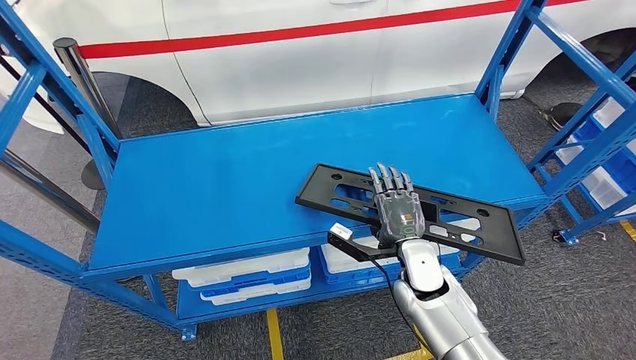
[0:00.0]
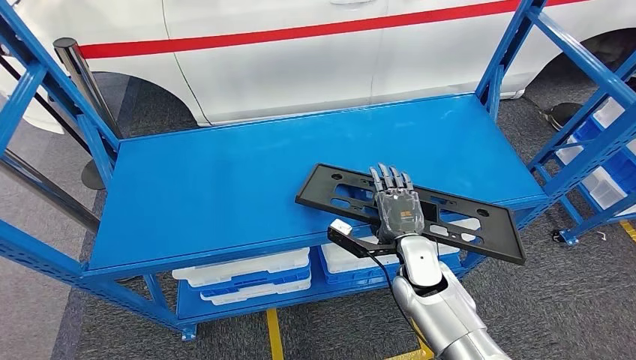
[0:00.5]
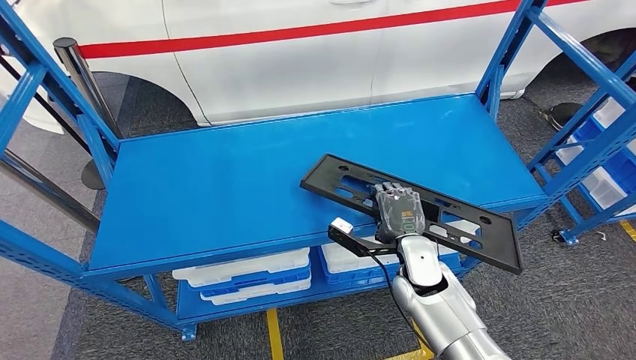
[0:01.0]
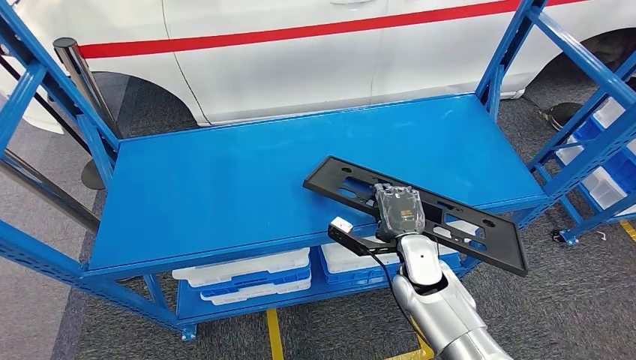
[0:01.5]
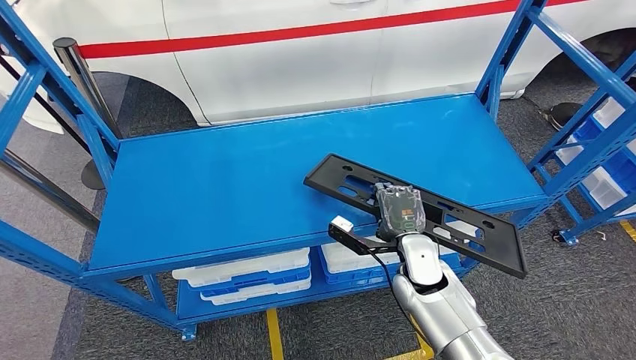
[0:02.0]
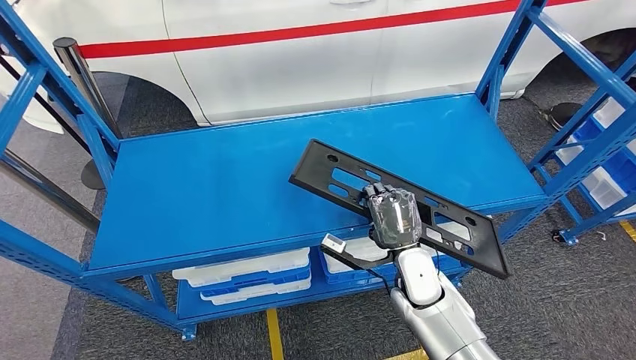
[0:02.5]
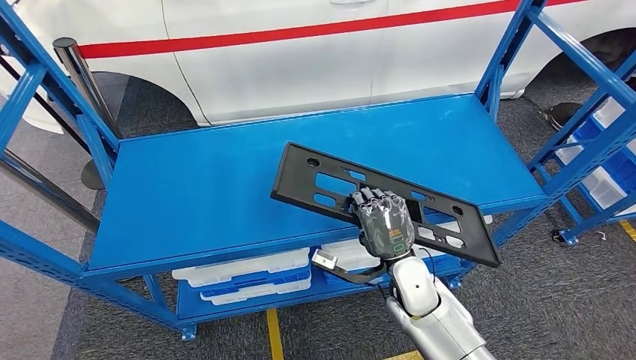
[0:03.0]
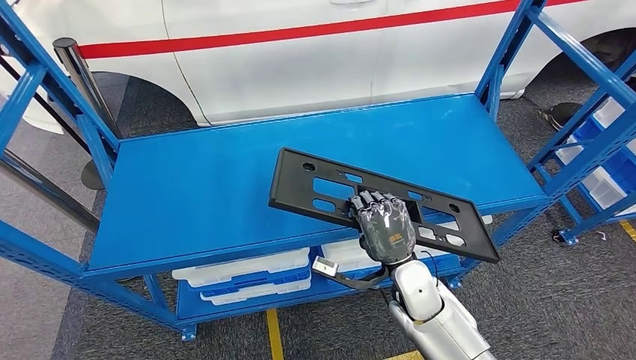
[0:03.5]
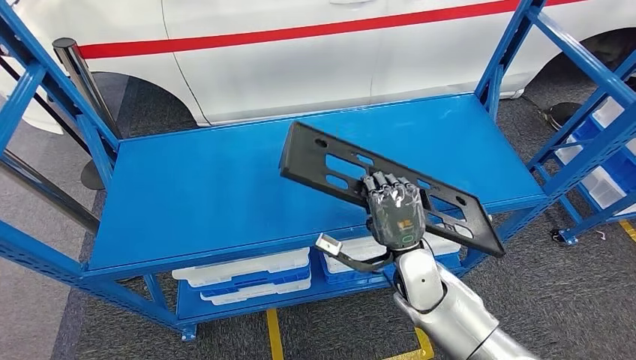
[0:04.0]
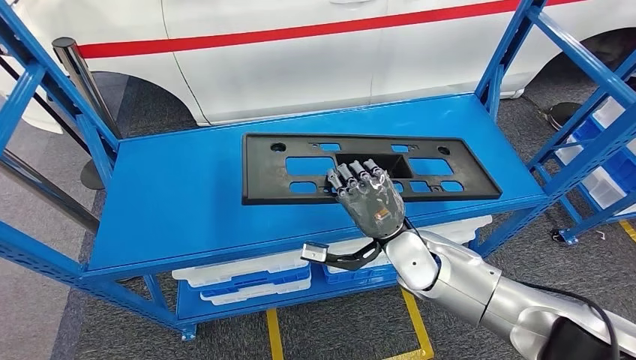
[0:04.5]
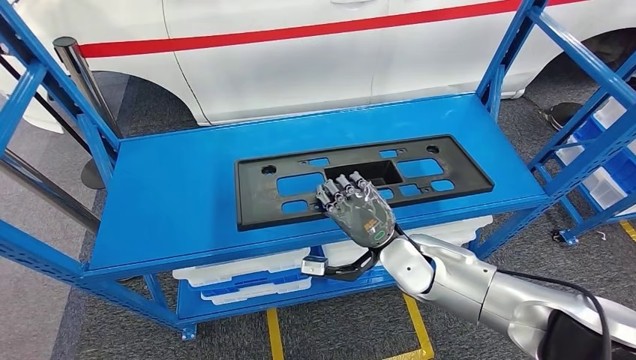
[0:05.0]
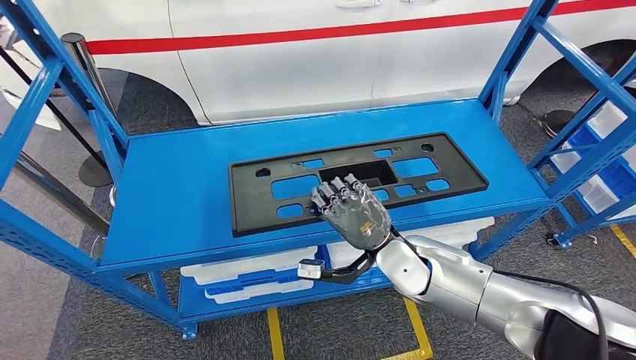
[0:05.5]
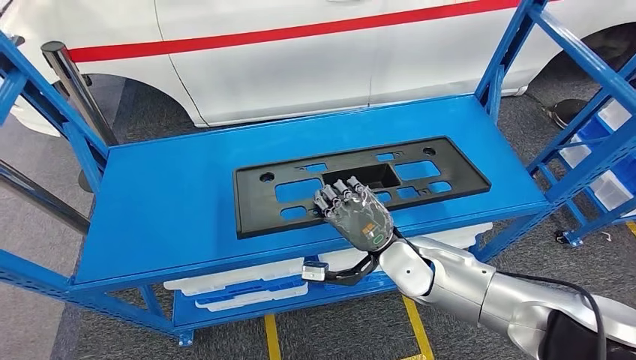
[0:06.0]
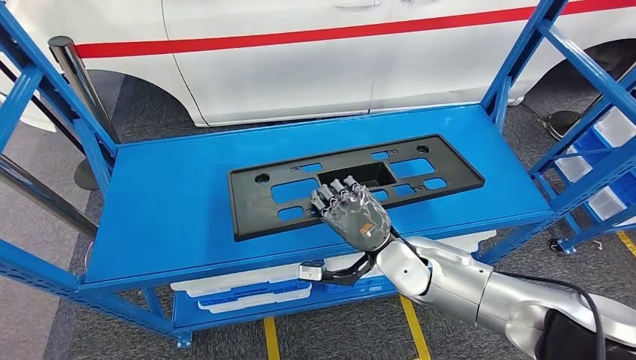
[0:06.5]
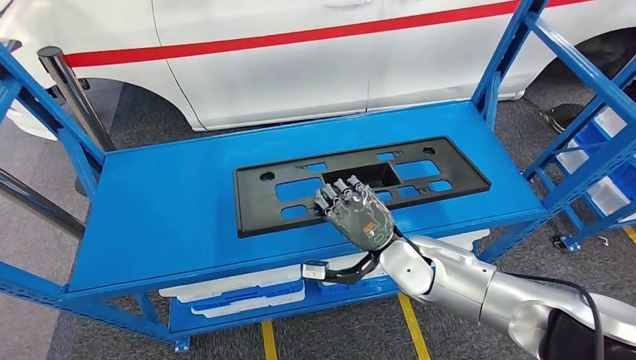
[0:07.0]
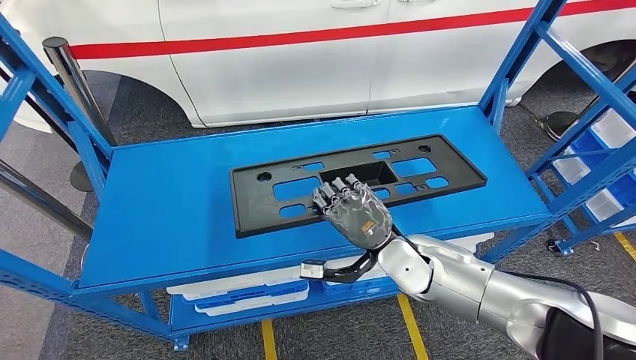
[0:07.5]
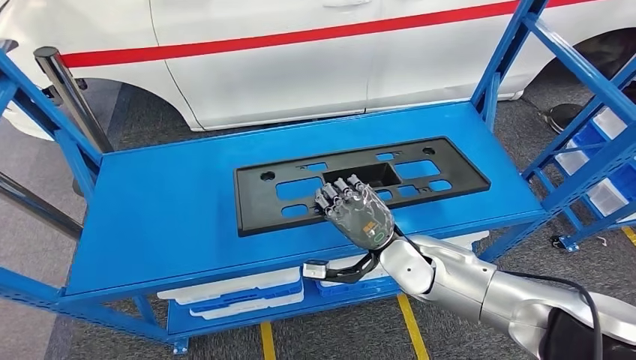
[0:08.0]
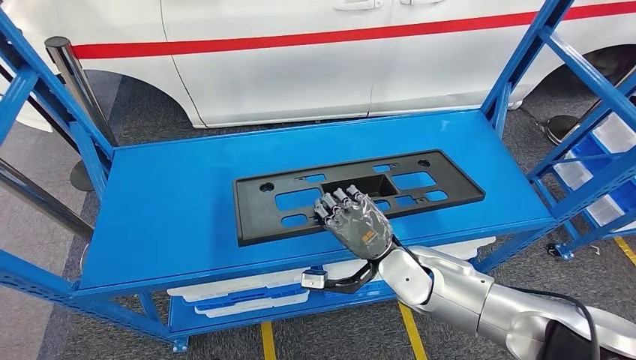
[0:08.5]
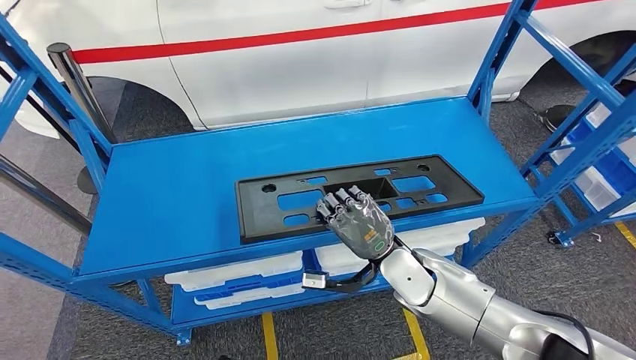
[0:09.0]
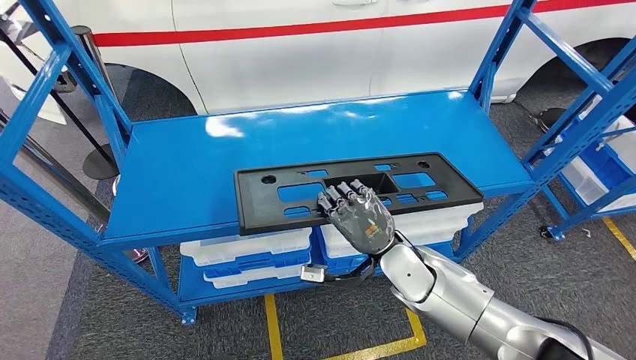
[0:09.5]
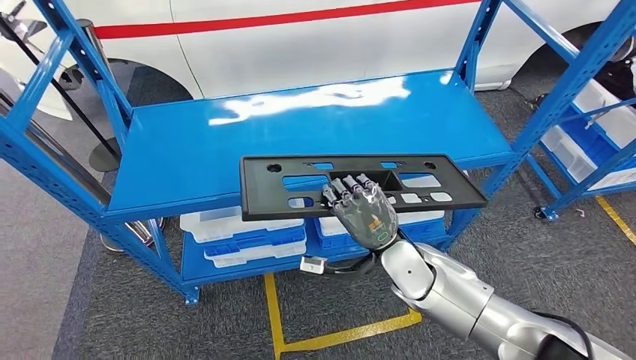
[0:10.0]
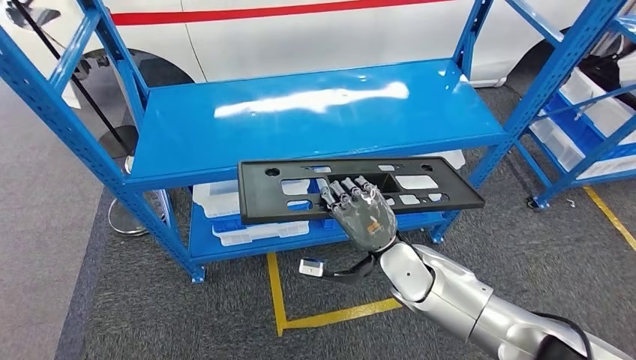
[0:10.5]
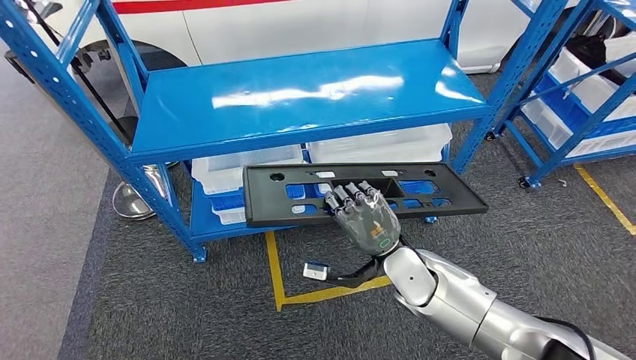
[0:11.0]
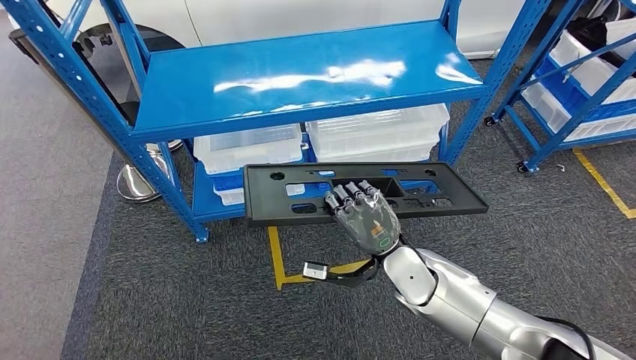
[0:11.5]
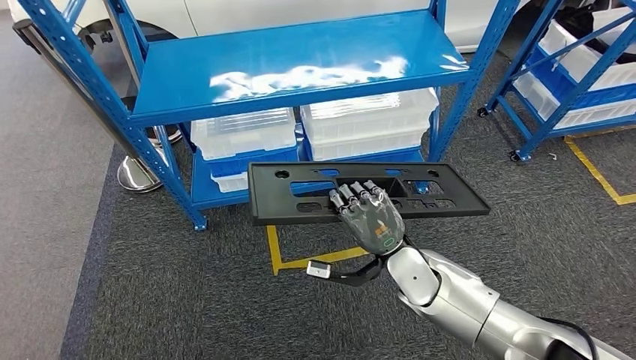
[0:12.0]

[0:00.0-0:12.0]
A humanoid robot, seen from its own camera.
Step, 0:00.0 to 0:02.0: Pick up the large material from the shelf.
0:00.0 to 0:02.0: Neither hand changes place.

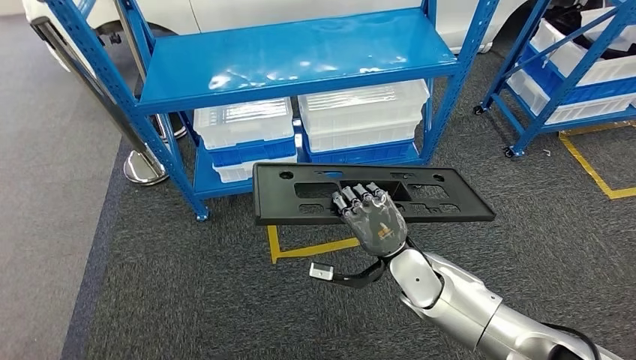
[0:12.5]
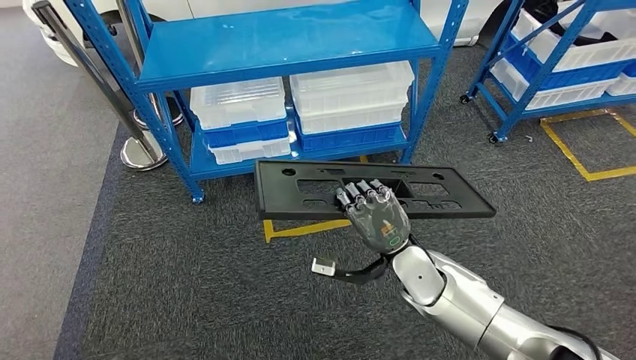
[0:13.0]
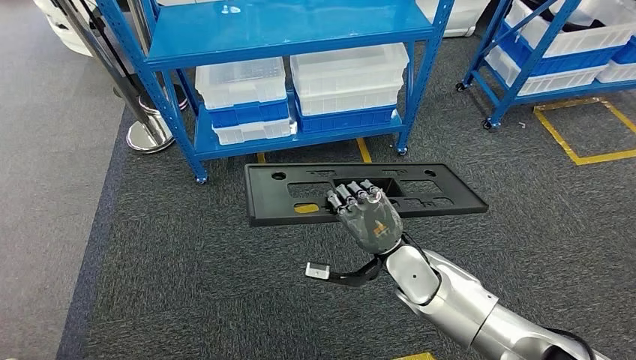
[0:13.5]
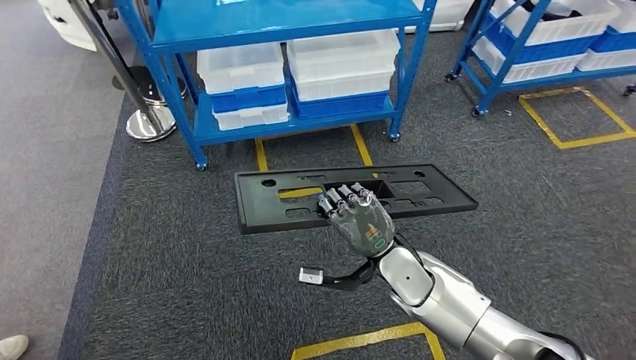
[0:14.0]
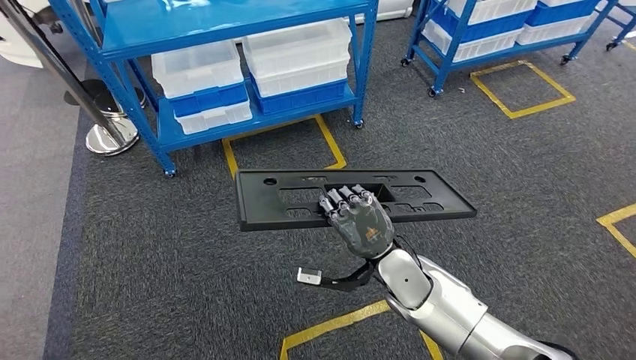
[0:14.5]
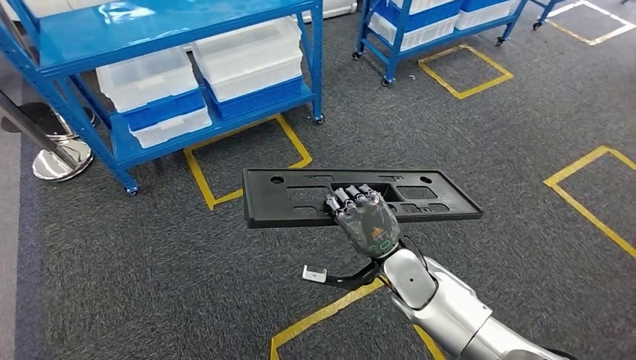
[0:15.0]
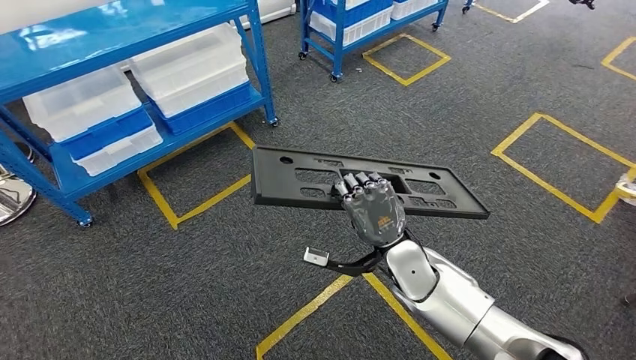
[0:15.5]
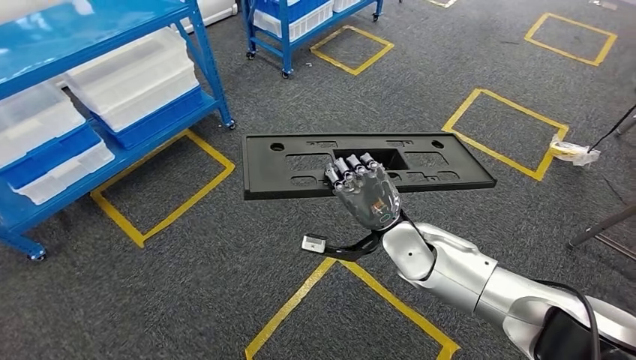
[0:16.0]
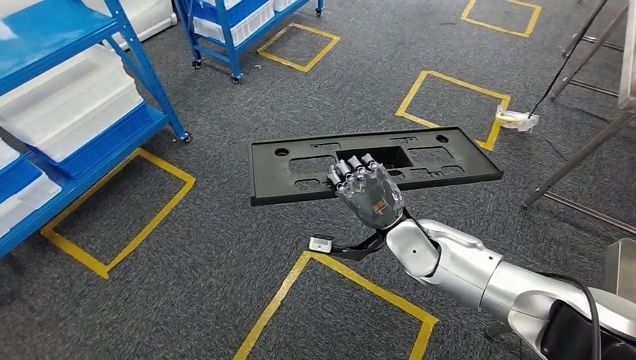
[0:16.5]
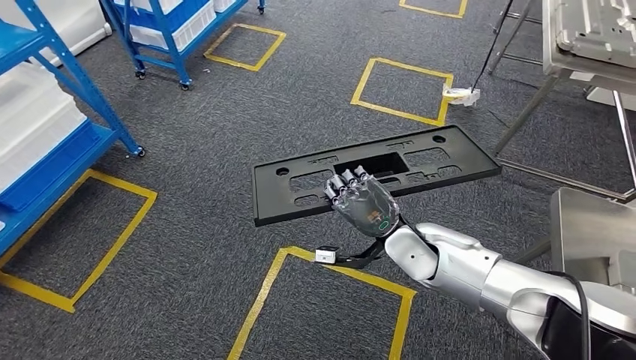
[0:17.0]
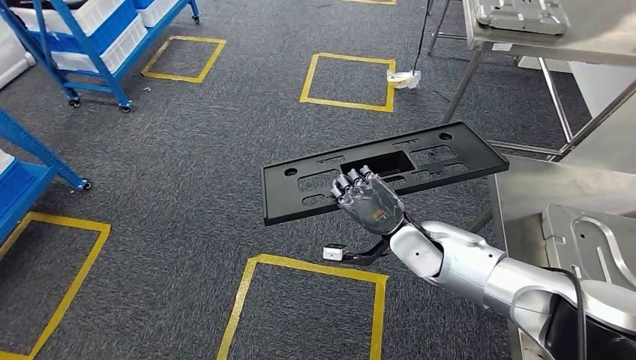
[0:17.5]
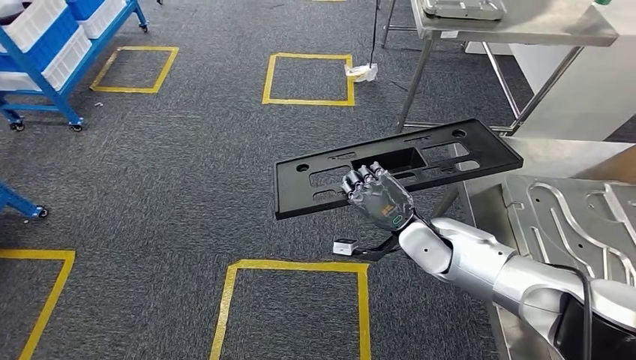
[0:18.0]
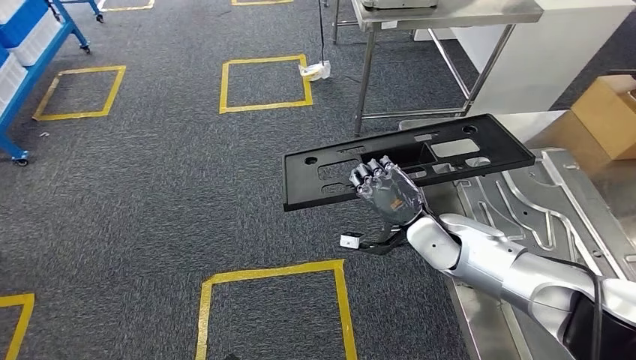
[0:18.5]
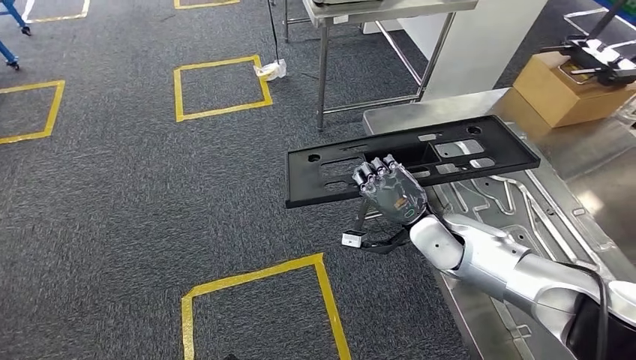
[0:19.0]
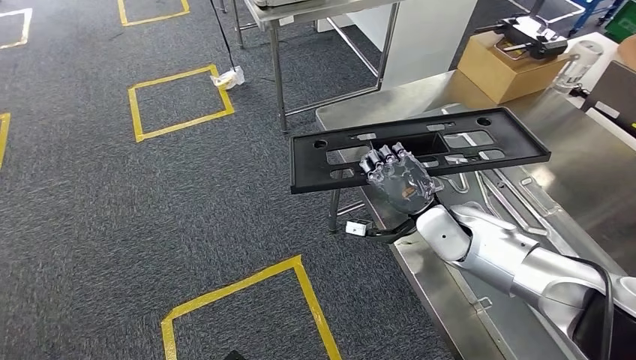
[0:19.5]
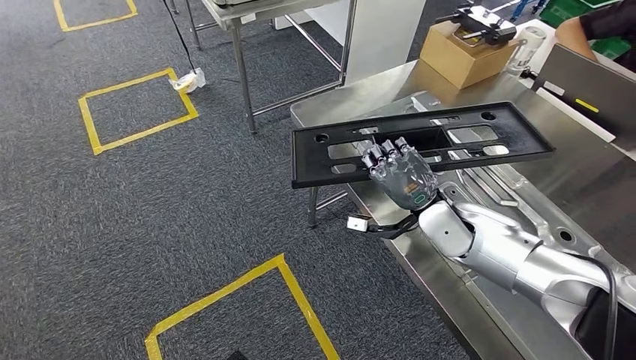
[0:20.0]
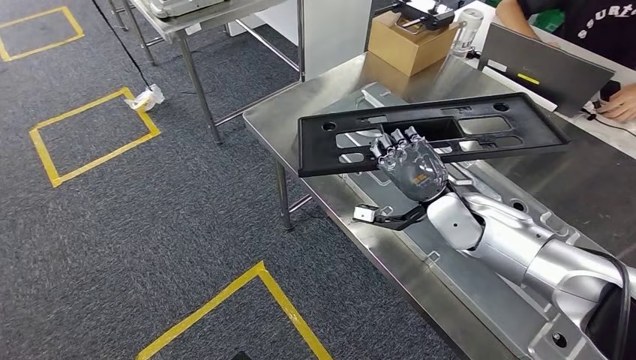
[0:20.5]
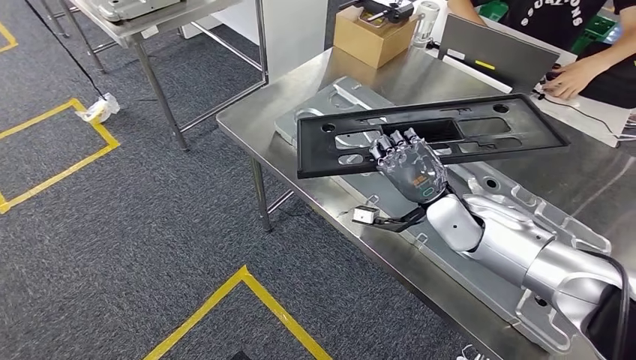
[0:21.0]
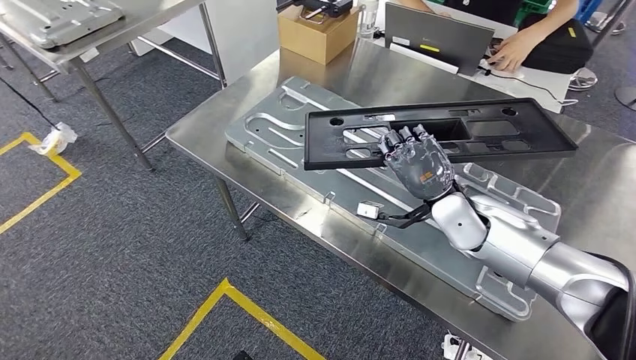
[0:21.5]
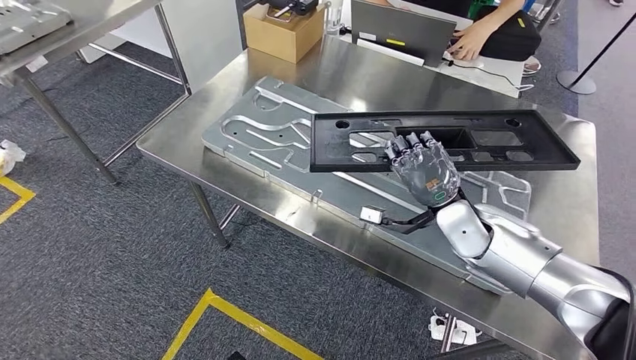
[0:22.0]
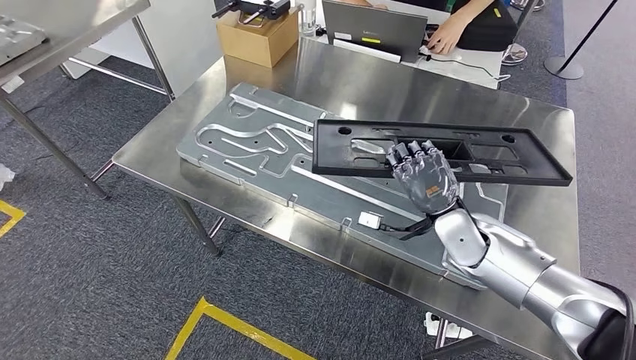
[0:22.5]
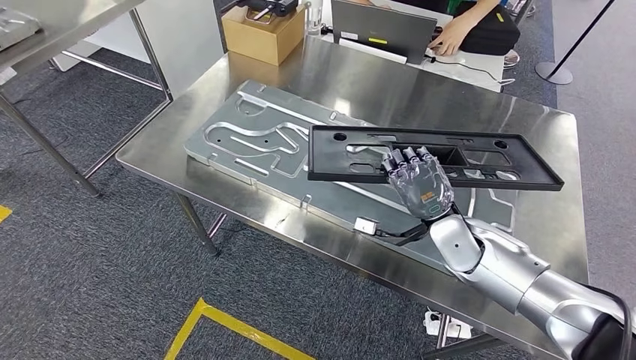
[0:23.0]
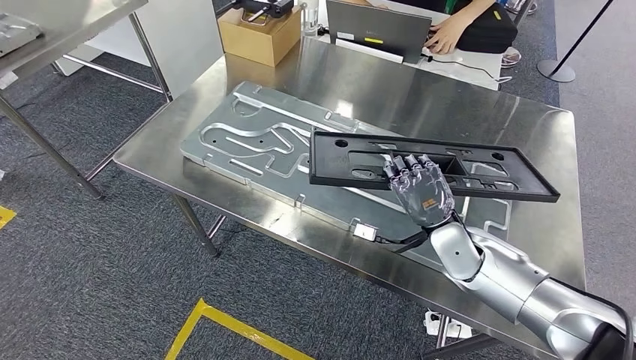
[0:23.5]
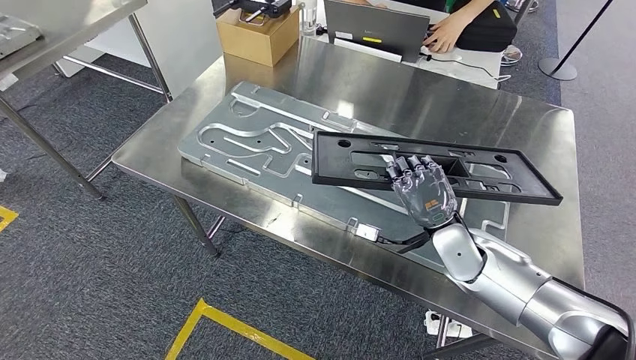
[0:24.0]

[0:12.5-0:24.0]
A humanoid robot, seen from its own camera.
Step, 0:13.0 to 0:19.5: Insert the large material into the corresponding slot on the workbench.
